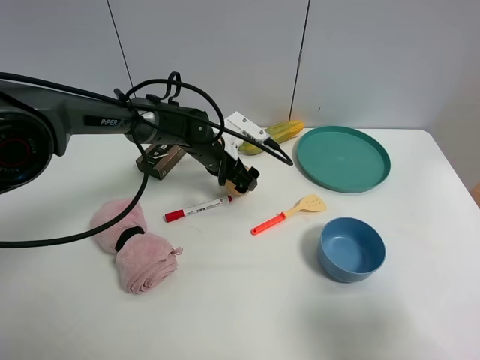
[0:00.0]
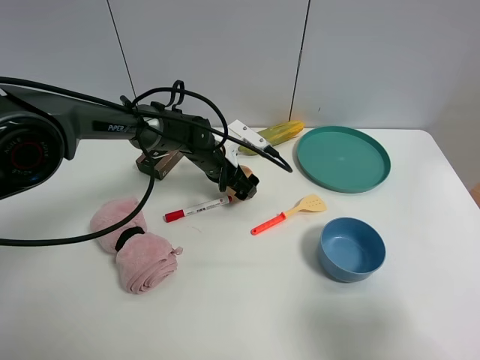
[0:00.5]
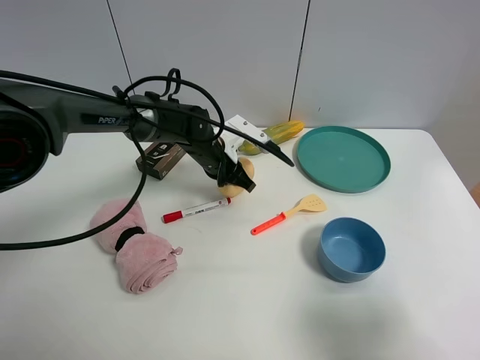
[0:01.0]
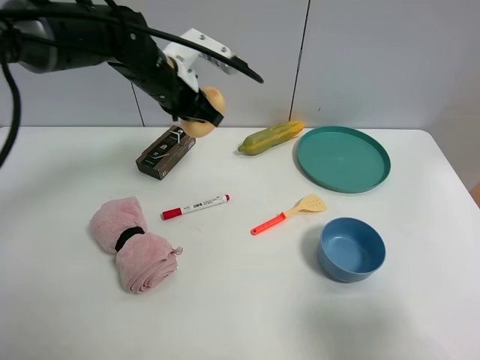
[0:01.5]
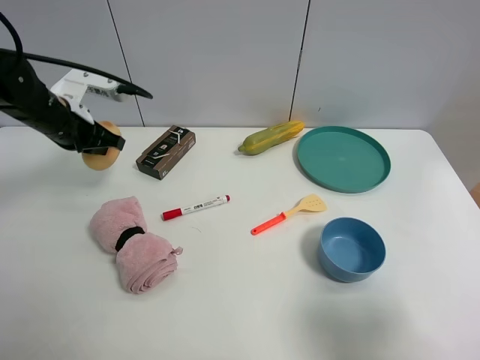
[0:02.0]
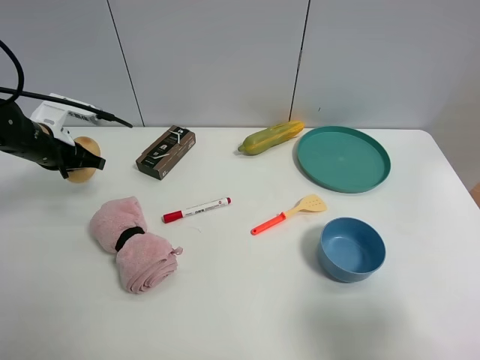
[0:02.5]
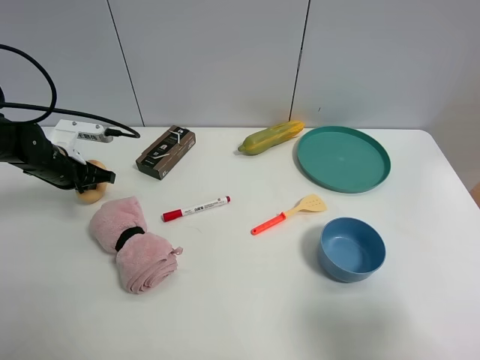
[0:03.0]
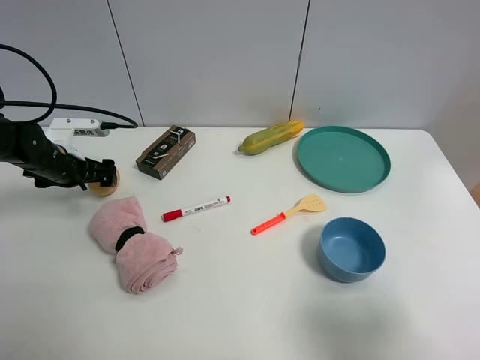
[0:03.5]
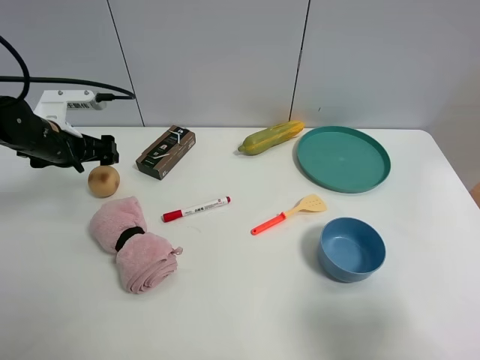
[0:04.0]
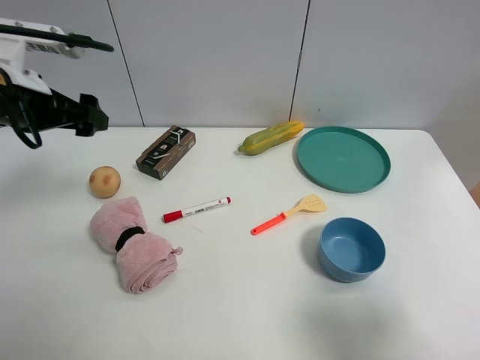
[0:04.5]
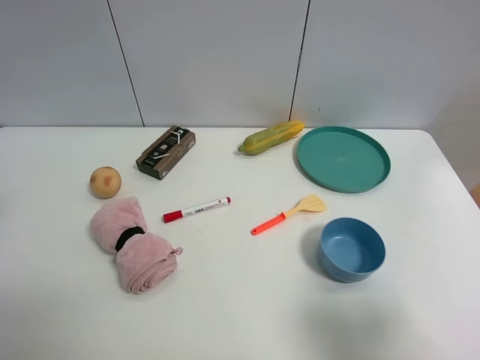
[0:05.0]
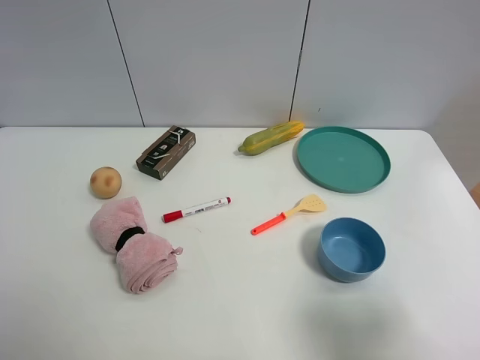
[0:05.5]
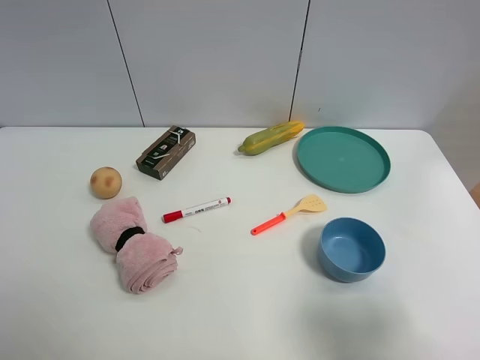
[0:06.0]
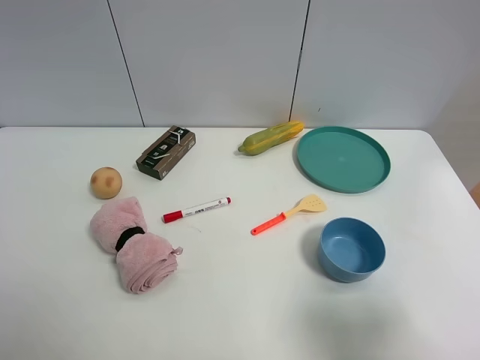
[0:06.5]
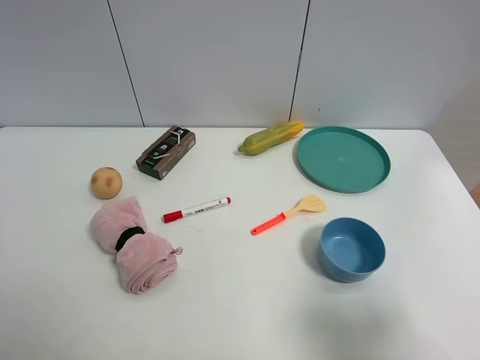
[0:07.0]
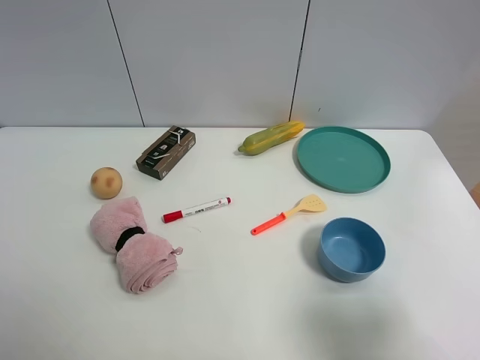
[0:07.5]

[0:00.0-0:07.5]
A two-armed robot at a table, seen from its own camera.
Task of the whole recording: the gripper move the object.
Step, 0:01.0 to 0:03.5: Place the egg yolk pastry on the table with the left gripper.
0:00.0 to 0:02.0: The left gripper heads to the left and upward, covering roughly 25 cm, and closes up.
0:02.0 to 0:04.0: The left gripper travels downward and back again, approximately 10 cm each way, and opens.
0:04.0 to 0:05.5: The left gripper heads backward and upward, covering about 40 cm.

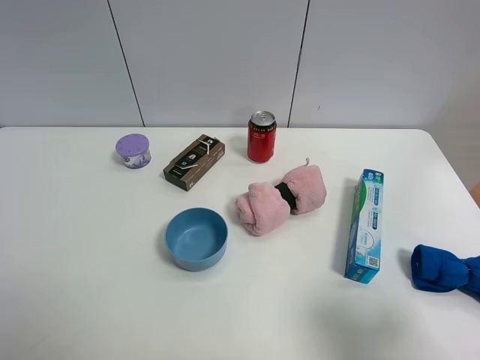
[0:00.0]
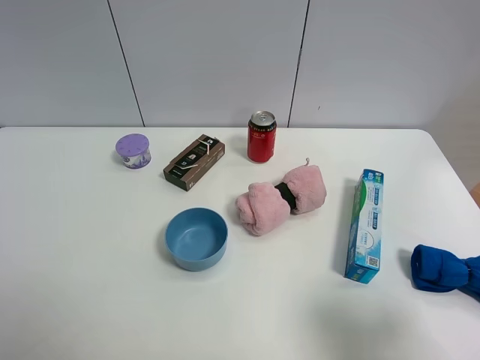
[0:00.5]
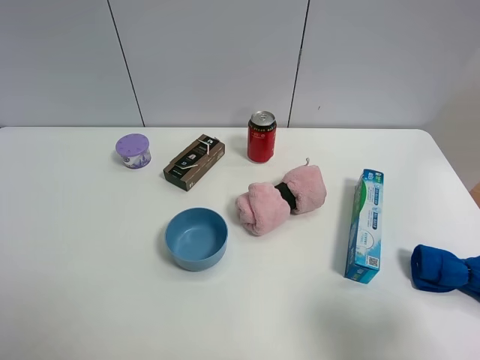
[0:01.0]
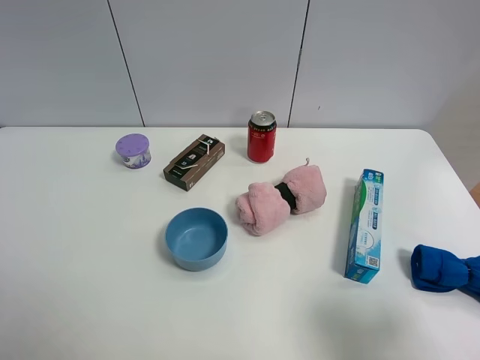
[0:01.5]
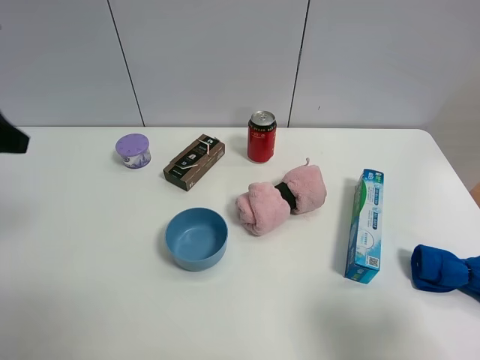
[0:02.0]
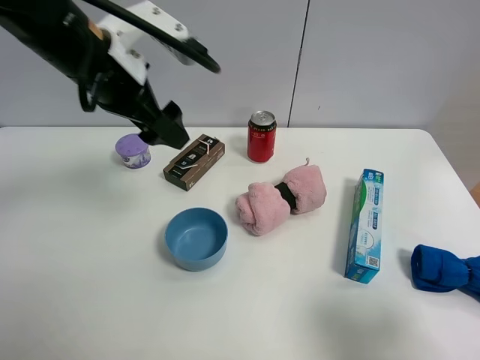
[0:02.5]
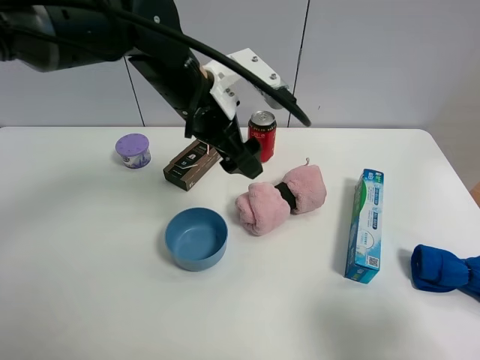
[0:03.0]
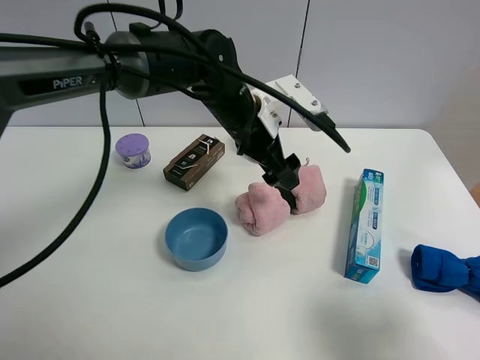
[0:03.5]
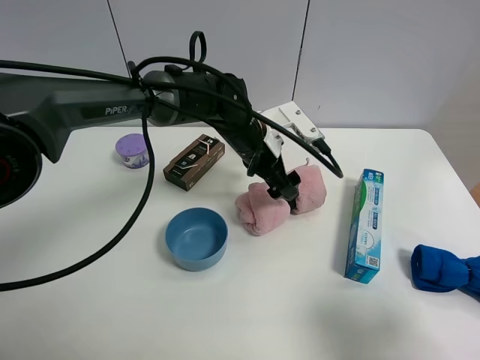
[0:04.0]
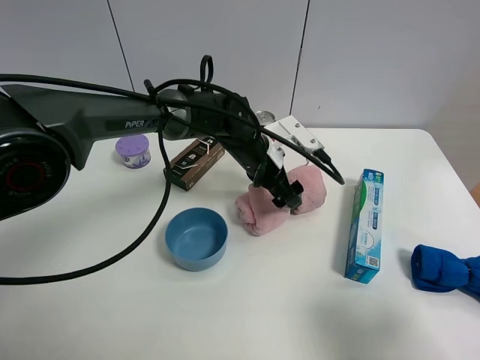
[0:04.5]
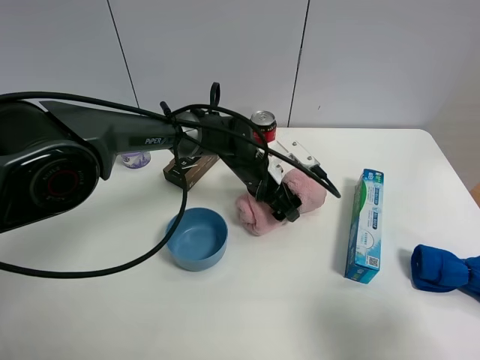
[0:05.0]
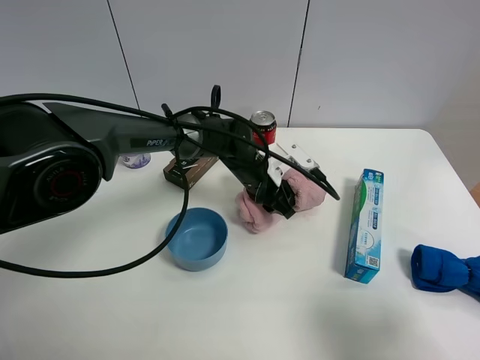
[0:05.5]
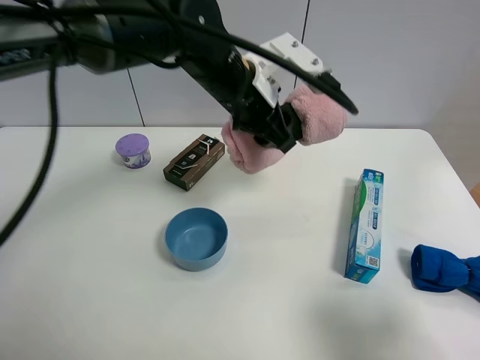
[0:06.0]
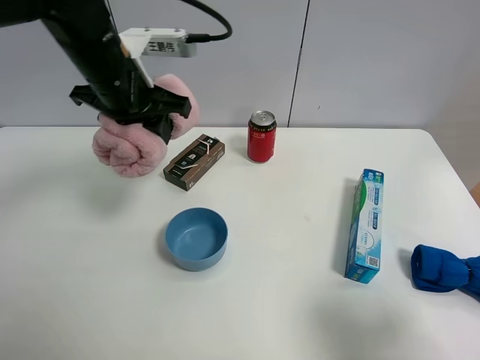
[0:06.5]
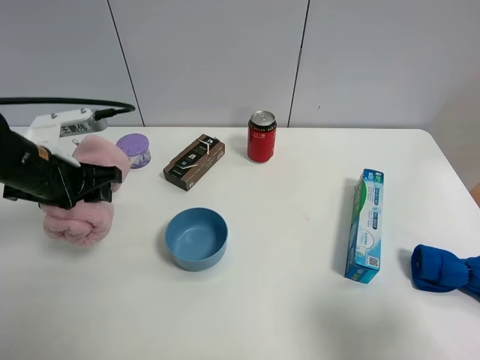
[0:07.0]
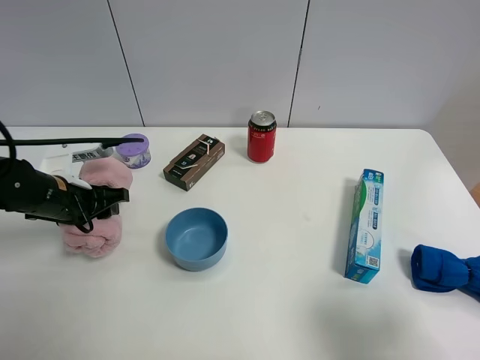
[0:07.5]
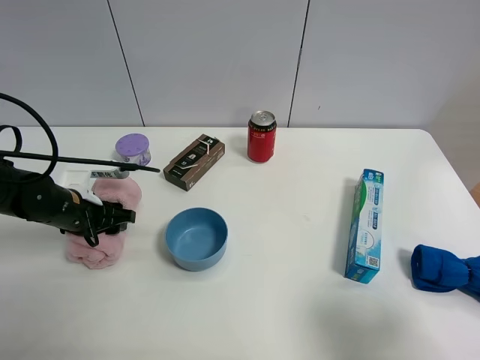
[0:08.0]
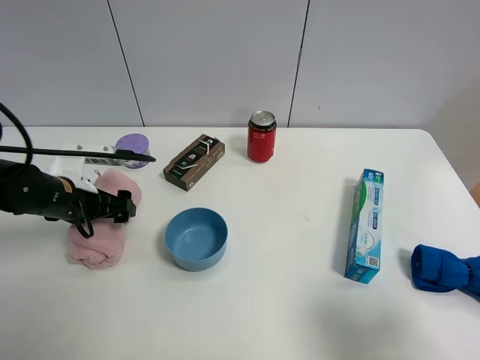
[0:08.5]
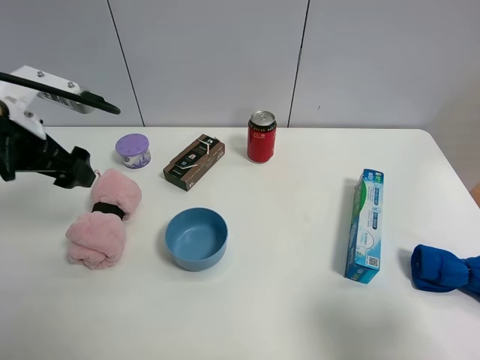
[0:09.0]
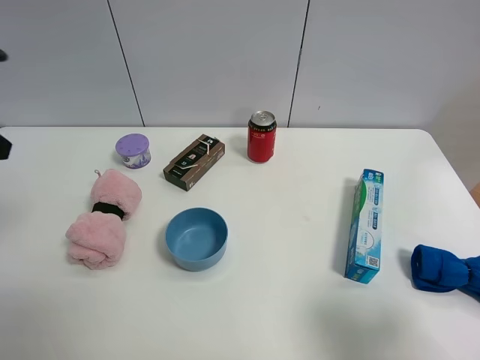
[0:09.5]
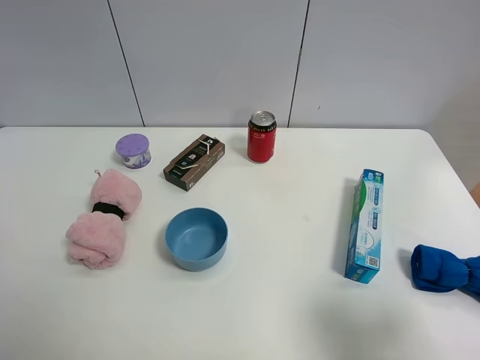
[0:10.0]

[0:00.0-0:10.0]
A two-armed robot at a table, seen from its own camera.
Task of the whole recording: the gripper move the object.
Step, 0:00.0 to 0:05.5: Grasp the pink towel with the left gripper.
Step, 0:06.0 to 0:08.5: Place the pink towel on the table with the left gripper.
0:02.0 to 0:04.0: The left gripper goes roughly 40 cm to the right, downward and forward.
0:04.0 to 0:06.0: The left gripper moves upward, some 10 cm, and closes up.
0:06.0 to 0:08.0: The left gripper moves to the left and downward, approximately 30 cm, and opens.
0:08.0 to 0:10.0: The left gripper is displaced upward and backward by about 35 cm, and opens.

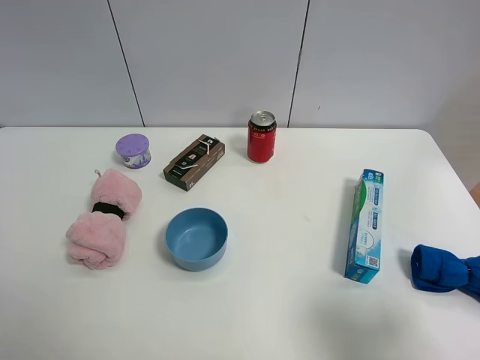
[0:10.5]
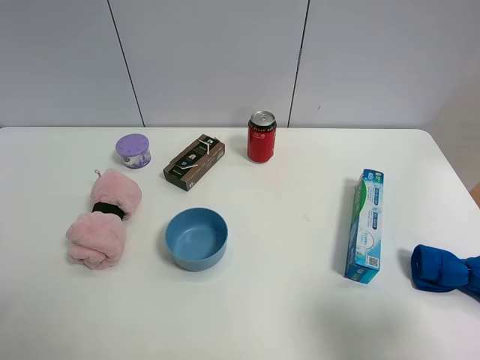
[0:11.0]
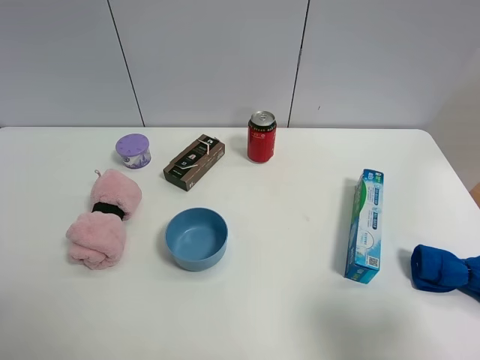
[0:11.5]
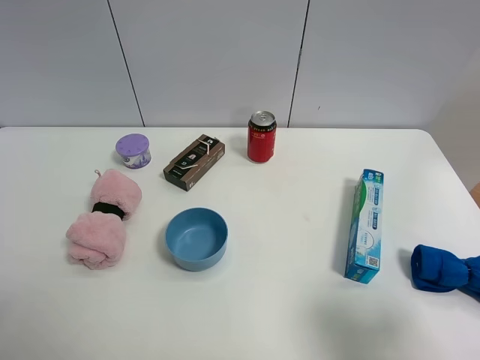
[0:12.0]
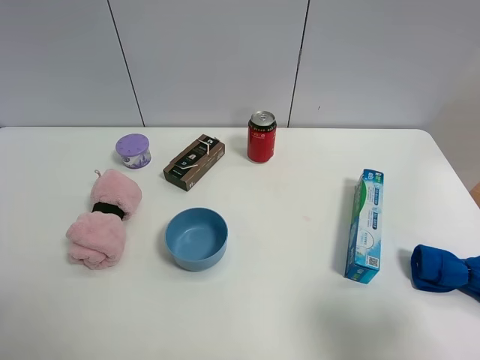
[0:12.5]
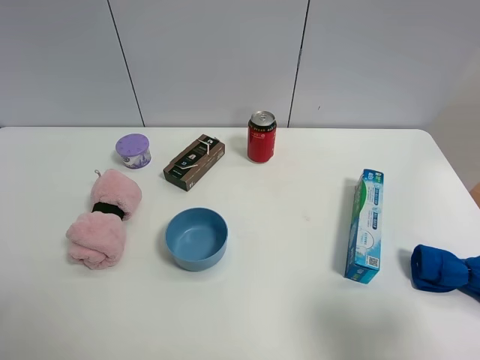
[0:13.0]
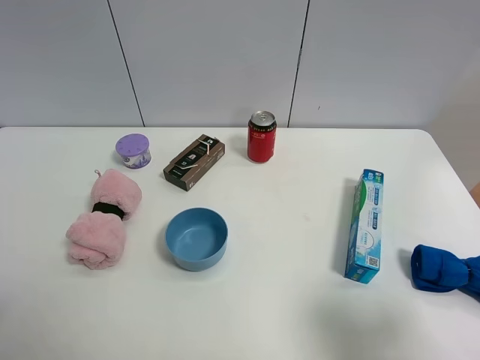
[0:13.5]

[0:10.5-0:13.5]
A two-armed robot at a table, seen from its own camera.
Task of the whole recording: the gripper move the object.
0:12.0 to 0:13.5: Neither gripper changes place.
